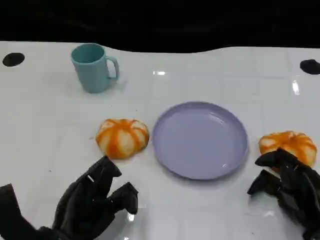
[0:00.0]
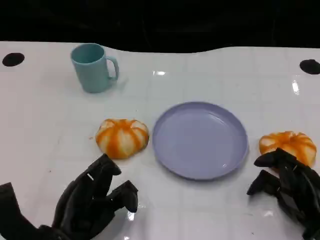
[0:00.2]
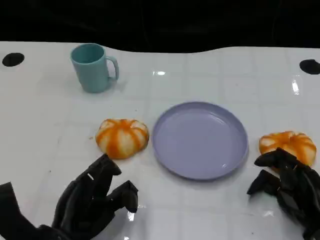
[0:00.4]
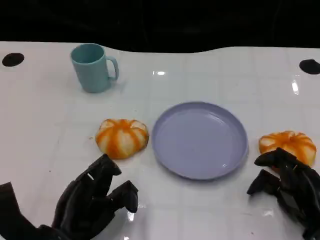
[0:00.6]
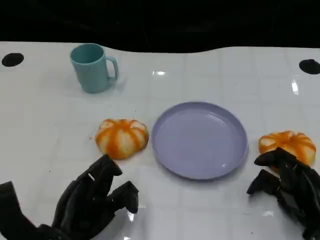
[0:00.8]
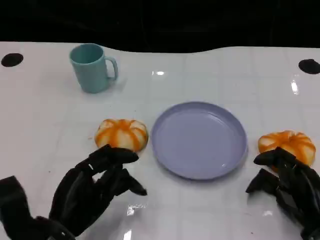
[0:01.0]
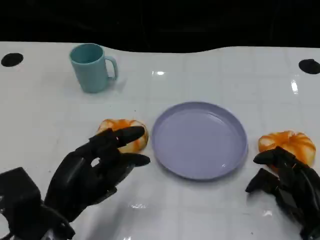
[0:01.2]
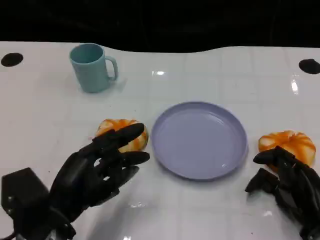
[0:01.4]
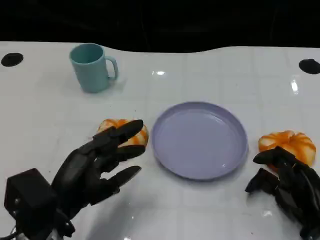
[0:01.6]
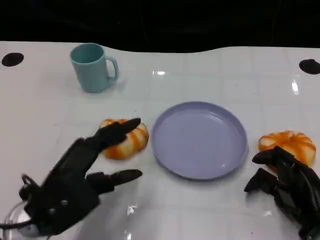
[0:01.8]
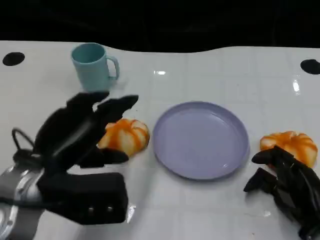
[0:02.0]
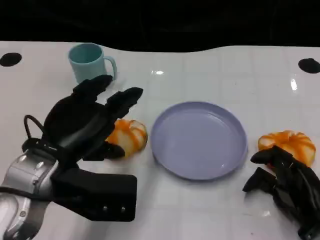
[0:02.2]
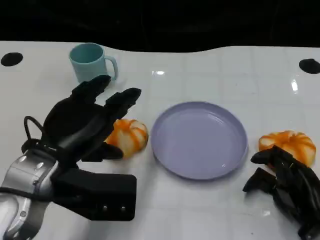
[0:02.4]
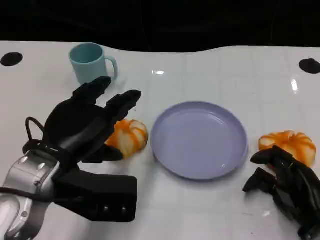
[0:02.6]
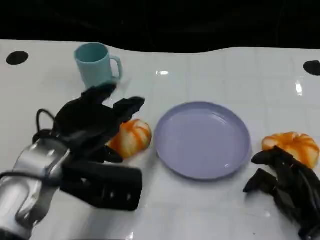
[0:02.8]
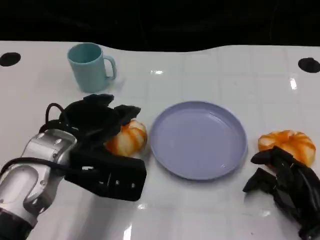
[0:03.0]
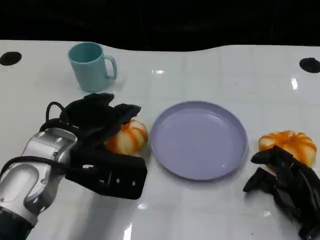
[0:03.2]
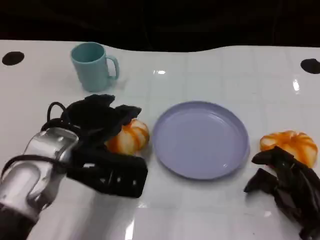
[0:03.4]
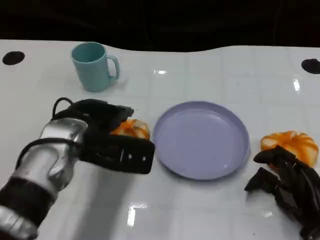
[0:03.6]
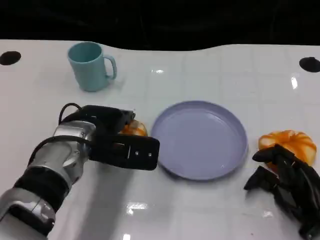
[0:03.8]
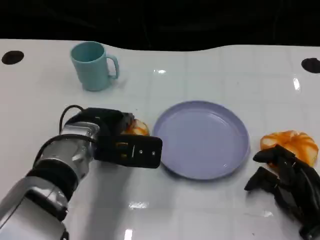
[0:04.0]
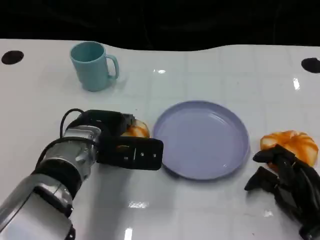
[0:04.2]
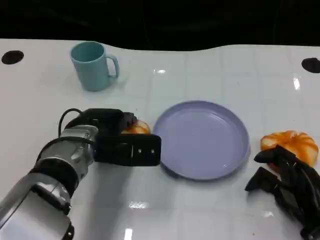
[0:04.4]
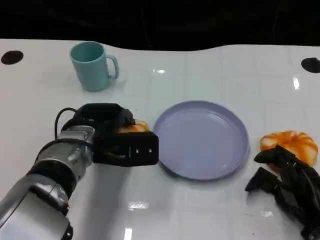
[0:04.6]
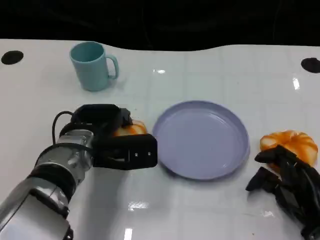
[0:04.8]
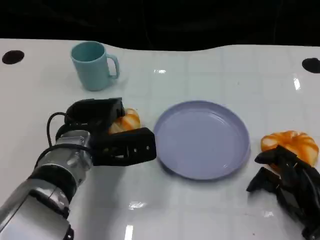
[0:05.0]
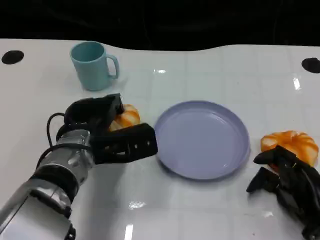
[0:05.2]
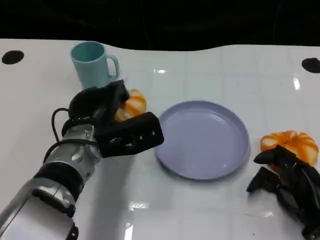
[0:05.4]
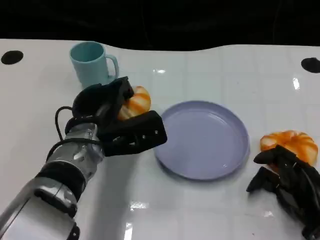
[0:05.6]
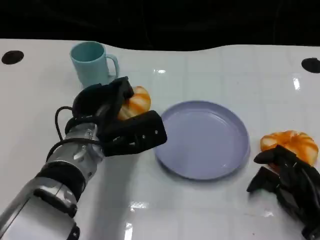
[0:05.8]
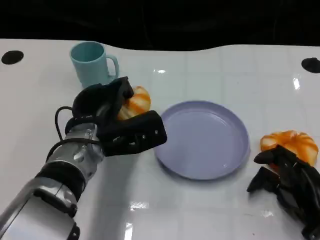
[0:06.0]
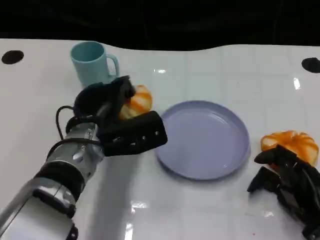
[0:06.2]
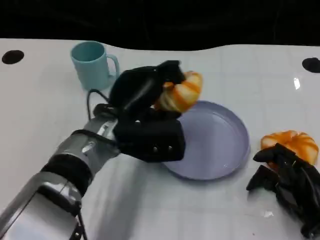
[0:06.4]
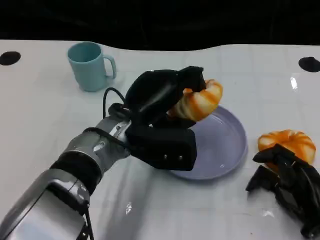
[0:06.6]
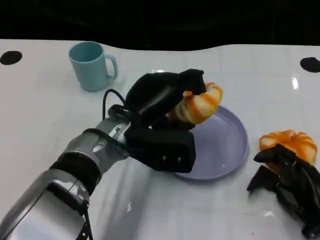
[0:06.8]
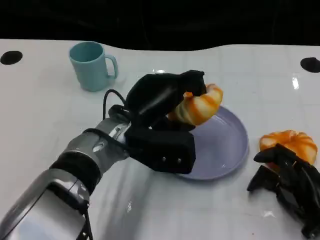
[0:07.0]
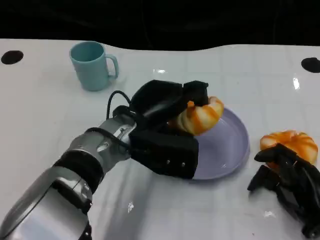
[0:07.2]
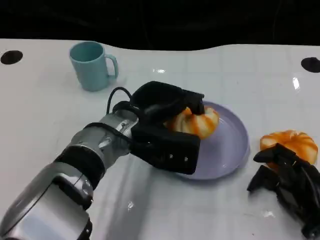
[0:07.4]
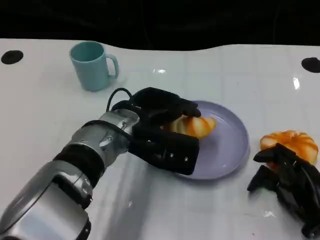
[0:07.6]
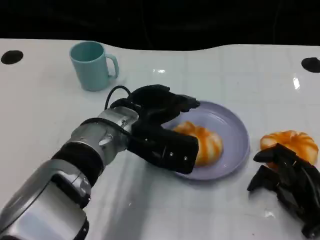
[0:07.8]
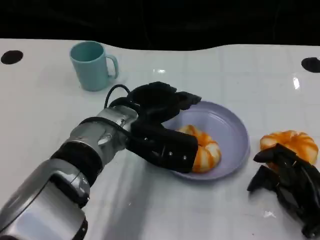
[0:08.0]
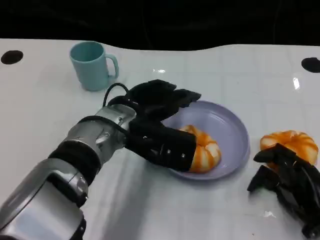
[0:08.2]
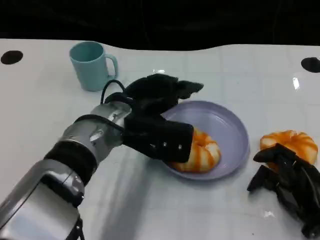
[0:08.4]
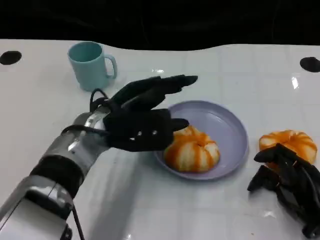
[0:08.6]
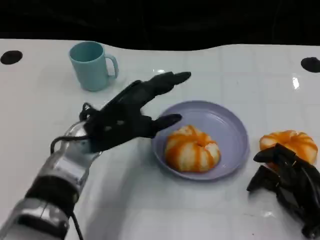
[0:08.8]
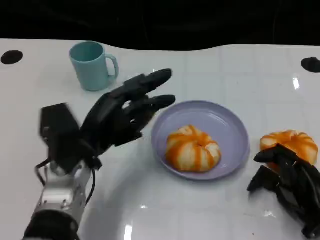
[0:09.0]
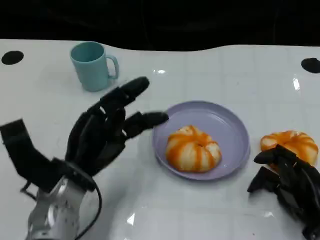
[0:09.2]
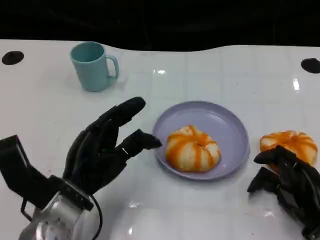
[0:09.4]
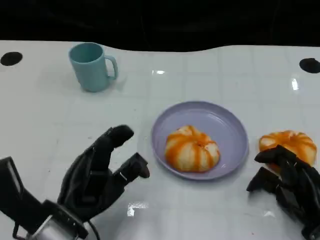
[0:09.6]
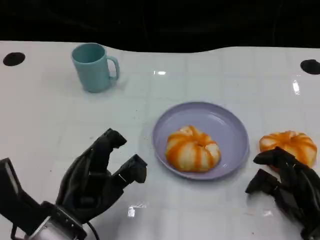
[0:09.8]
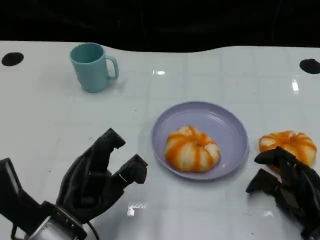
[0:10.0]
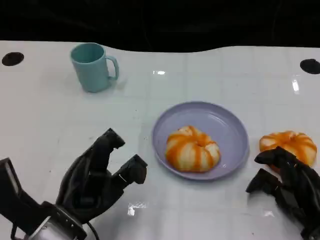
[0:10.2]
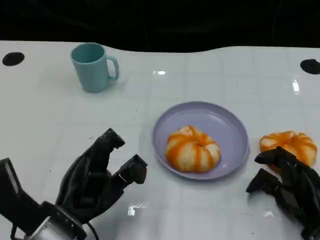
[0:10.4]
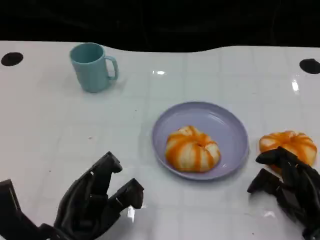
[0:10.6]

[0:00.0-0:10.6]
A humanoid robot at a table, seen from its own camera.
Task of the whole recording: Grasp the bread from the table and place it into the plate.
0:00.0 to 0:01.6: The left hand shifts roughly 5 cm upward.
0:01.6 to 0:03.0: The left hand travels forward and upward by approximately 10 cm.
0:03.0 to 0:04.6: The left hand goes some 5 cm downward.
0:06.0 to 0:07.6: The left hand moves some 5 cm.
0:07.6 to 0:09.0: The left hand goes approximately 10 cm to the left.
0:09.0 to 0:10.6: The left hand is displaced backward by approximately 10 cm.

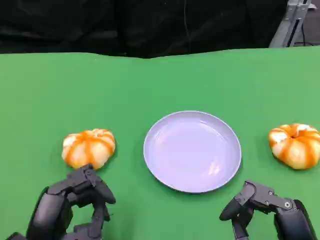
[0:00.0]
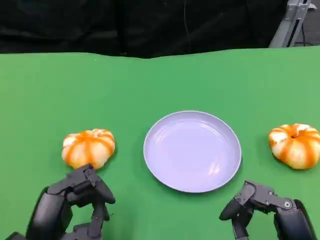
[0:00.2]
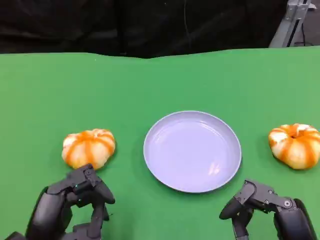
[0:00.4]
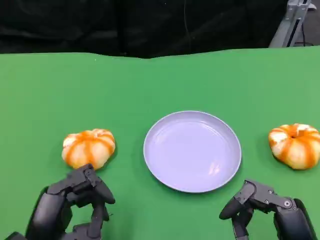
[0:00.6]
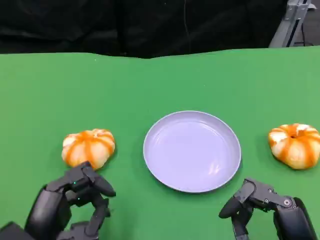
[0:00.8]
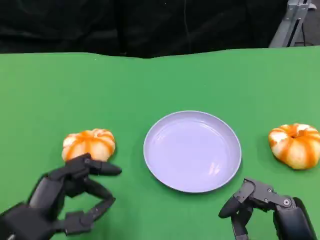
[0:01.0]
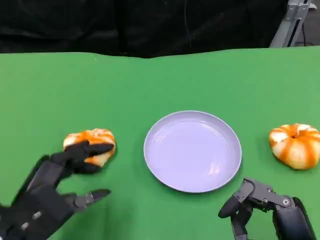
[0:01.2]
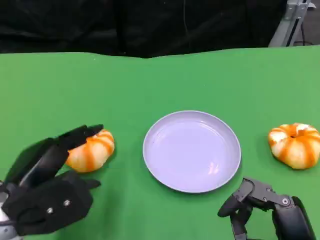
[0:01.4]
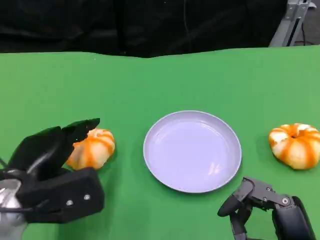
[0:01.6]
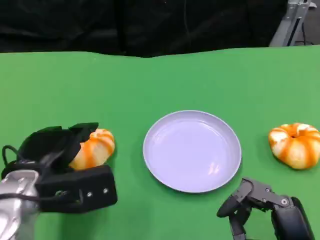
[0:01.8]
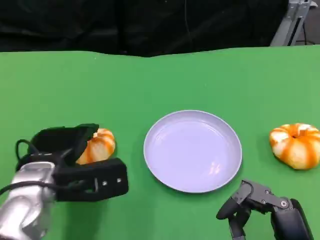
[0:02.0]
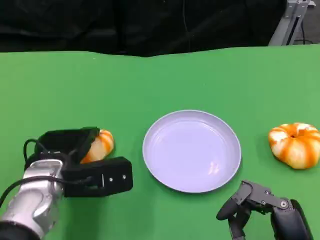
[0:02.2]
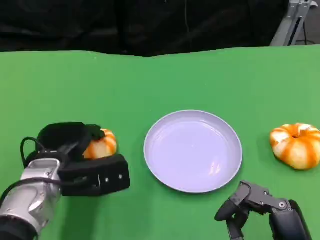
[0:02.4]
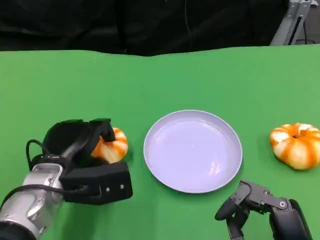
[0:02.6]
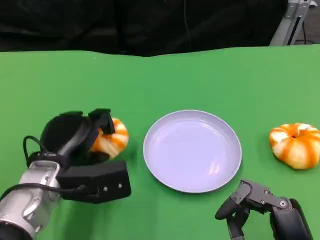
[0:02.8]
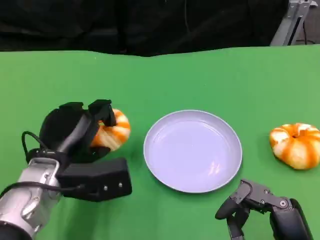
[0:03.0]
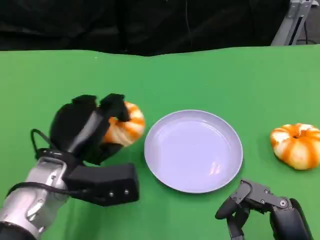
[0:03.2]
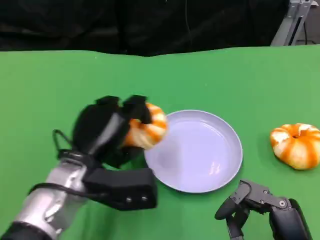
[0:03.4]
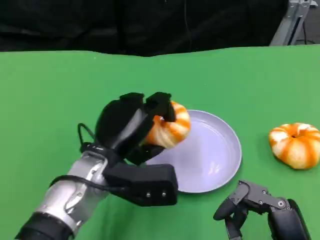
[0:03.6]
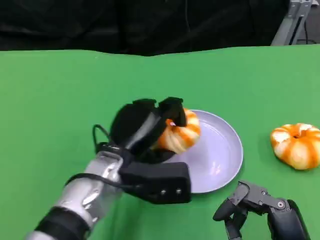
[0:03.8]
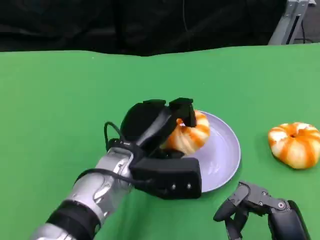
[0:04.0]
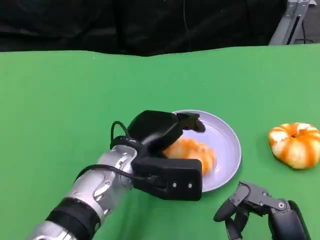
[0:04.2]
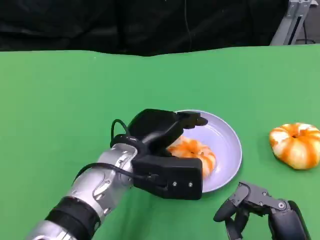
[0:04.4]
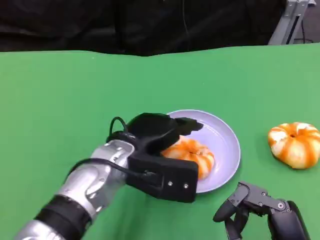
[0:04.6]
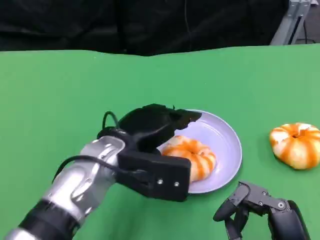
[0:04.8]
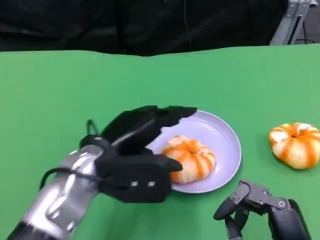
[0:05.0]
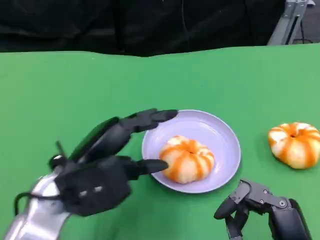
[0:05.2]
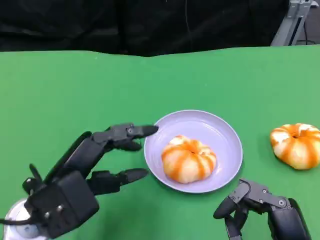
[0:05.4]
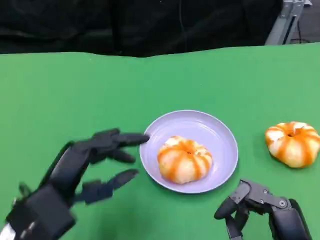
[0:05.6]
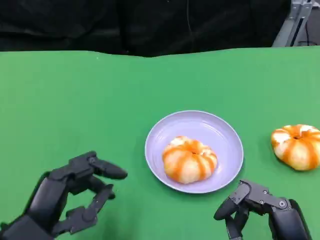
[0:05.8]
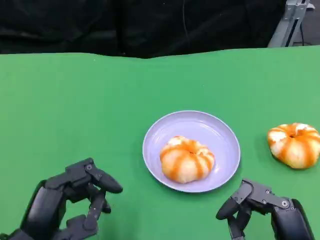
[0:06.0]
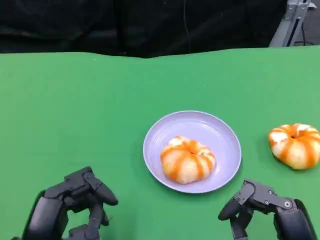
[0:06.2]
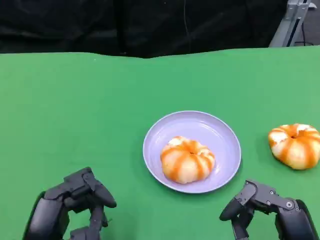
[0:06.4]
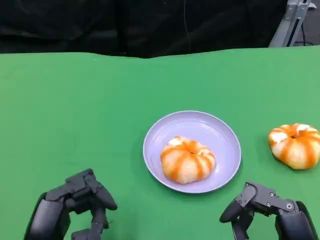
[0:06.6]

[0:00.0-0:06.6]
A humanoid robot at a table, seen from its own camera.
Task of the whole recording: Grasp the bread from the table and place it into the plate.
0:00.0 to 0:01.6: The left hand moves forward, roughly 10 cm.
0:01.6 to 0:03.2: The left hand heads to the right, covering roughly 5 cm.
0:05.0 to 0:06.6: The left hand goes some 15 cm backward, to the left and downward.

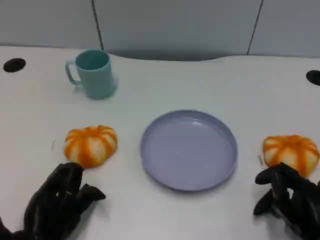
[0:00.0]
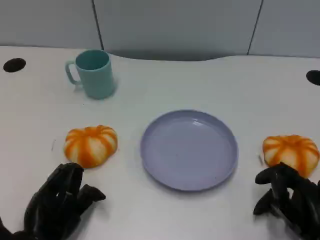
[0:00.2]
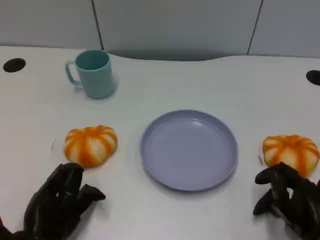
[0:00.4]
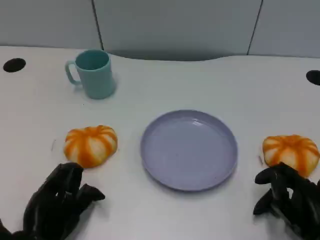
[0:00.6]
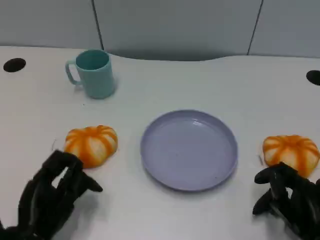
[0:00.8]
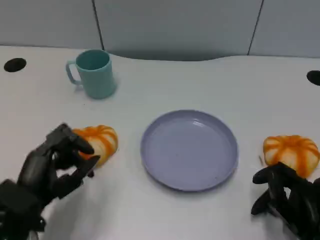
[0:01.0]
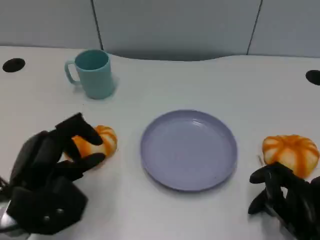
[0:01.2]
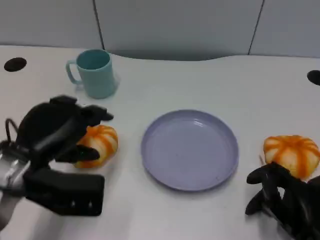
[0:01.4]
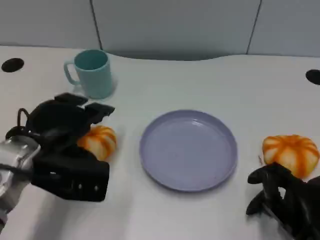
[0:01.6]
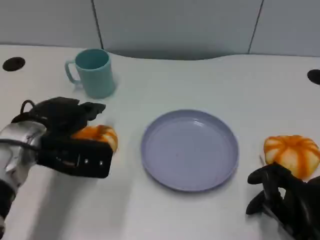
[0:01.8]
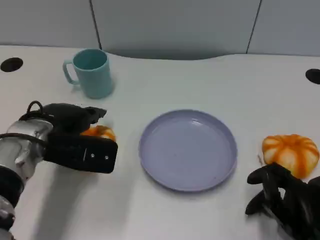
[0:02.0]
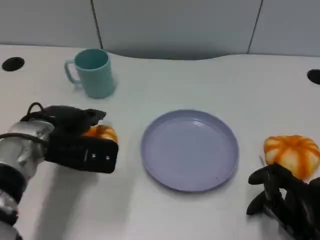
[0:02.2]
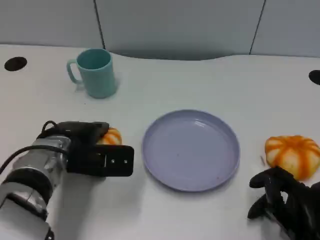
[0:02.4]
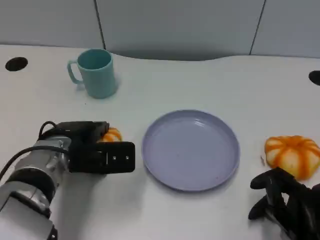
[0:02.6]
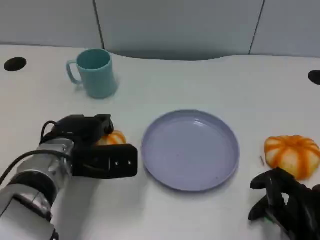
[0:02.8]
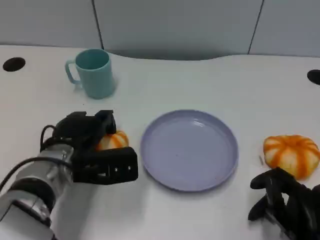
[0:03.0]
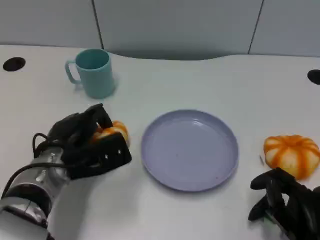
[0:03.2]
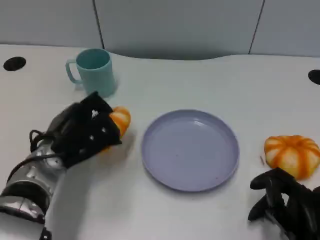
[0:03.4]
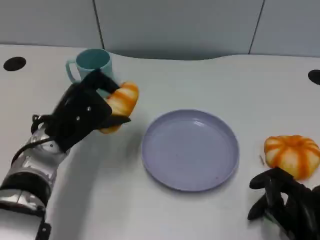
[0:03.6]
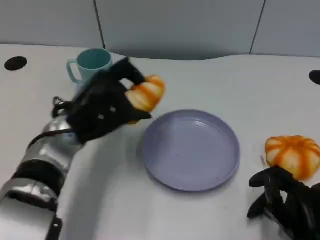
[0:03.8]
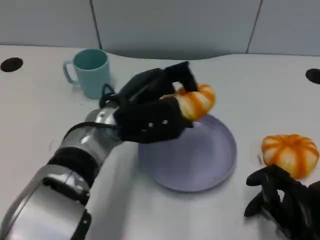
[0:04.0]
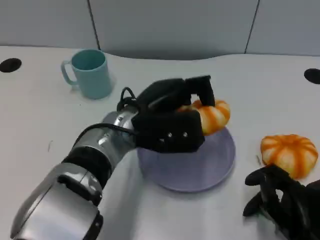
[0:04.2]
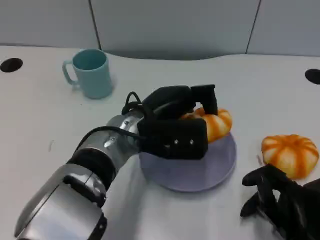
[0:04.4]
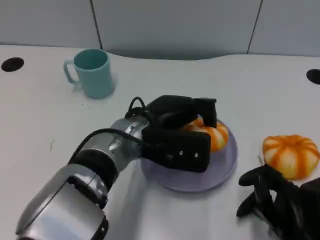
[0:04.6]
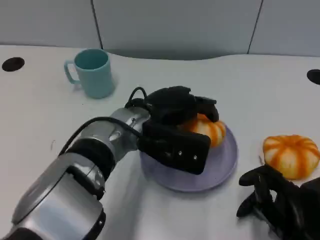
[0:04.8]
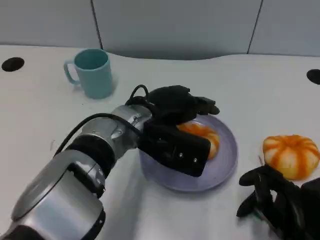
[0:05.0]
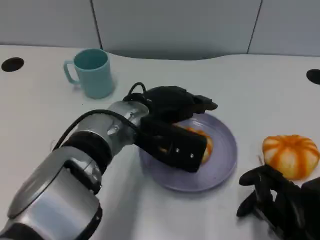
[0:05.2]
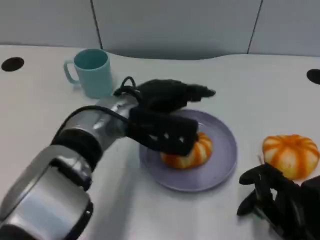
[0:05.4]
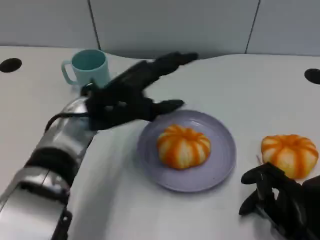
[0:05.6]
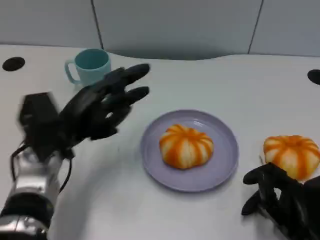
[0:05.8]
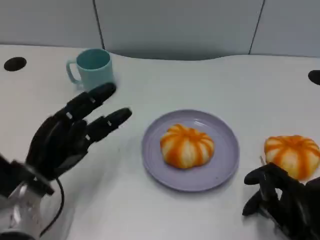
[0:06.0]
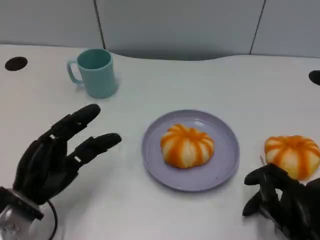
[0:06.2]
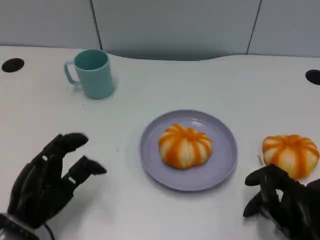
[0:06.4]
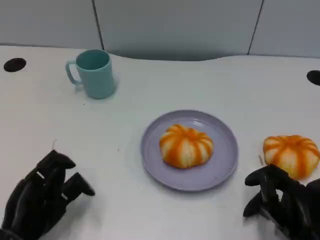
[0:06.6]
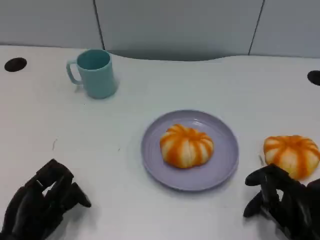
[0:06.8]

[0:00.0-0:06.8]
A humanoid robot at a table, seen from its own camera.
Task of the whole recording: Grasp the bread from the table and place it into the plate.
0:00.0 to 0:01.4: The left hand moves upward and forward, some 15 cm.
0:01.4 to 0:02.8: The left hand moves downward, some 5 cm.
0:02.8 to 0:04.0: The left hand shifts some 10 cm to the right and upward.
0:05.4 to 0:06.8: The left hand shifts approximately 25 cm to the left, backward and downward.
